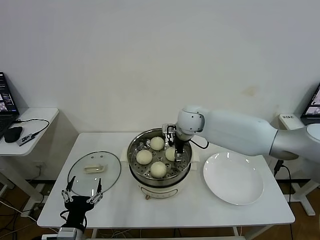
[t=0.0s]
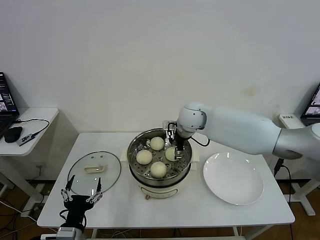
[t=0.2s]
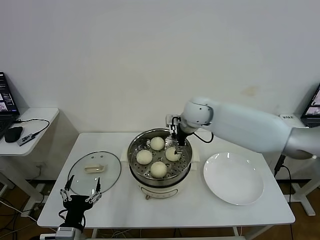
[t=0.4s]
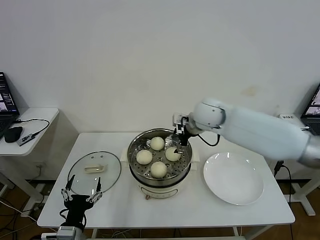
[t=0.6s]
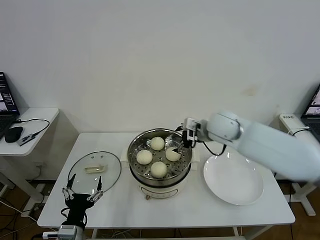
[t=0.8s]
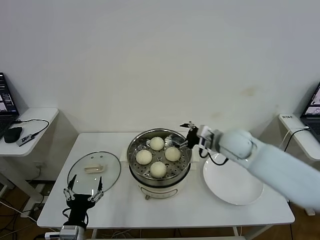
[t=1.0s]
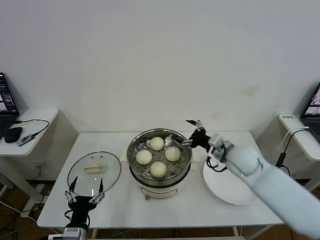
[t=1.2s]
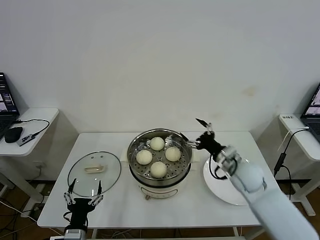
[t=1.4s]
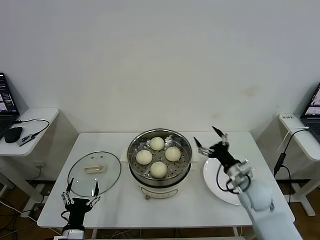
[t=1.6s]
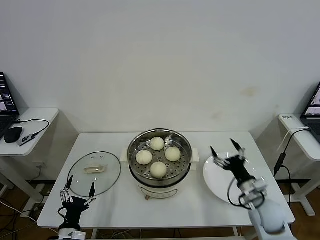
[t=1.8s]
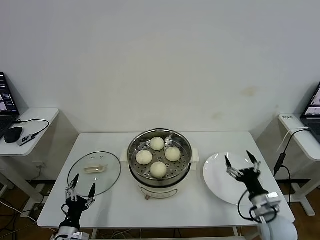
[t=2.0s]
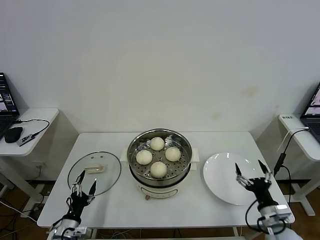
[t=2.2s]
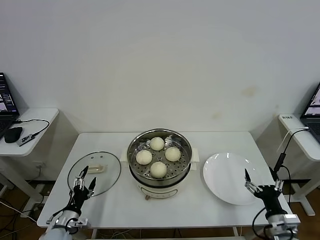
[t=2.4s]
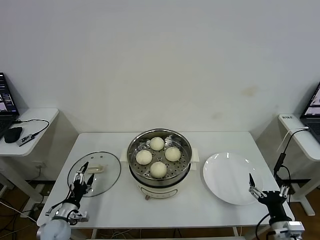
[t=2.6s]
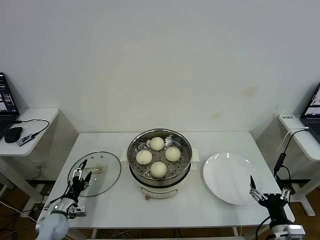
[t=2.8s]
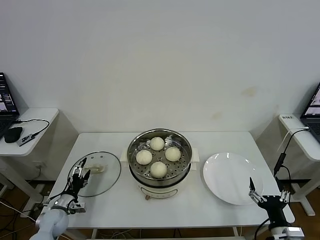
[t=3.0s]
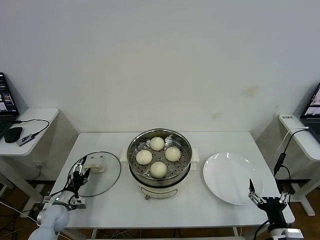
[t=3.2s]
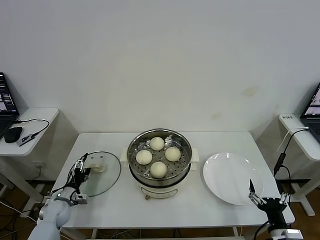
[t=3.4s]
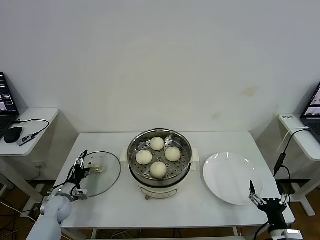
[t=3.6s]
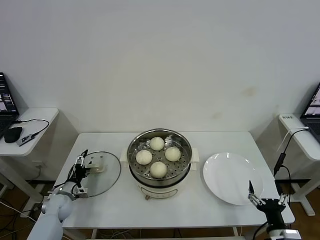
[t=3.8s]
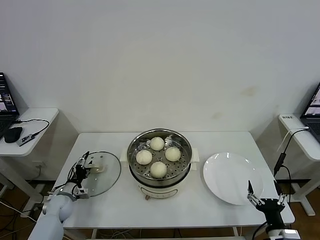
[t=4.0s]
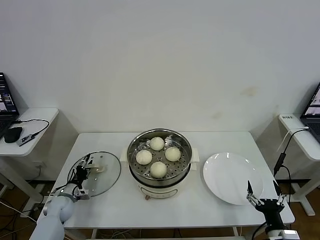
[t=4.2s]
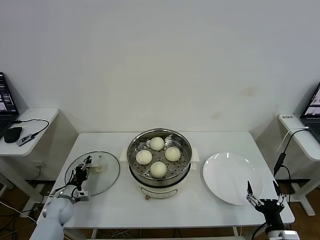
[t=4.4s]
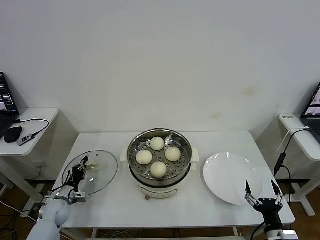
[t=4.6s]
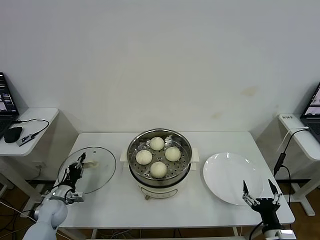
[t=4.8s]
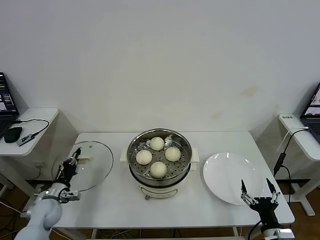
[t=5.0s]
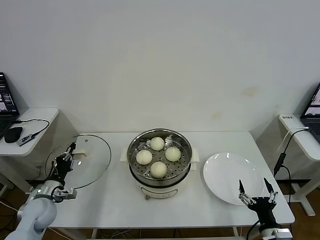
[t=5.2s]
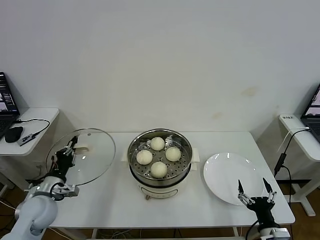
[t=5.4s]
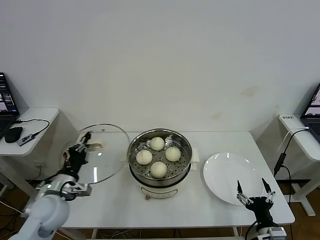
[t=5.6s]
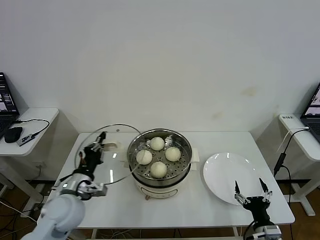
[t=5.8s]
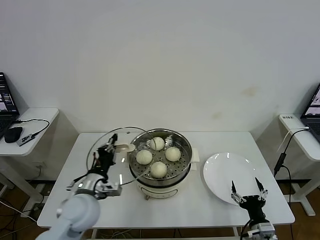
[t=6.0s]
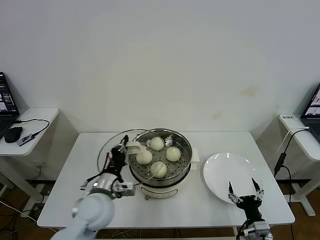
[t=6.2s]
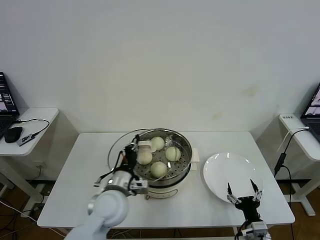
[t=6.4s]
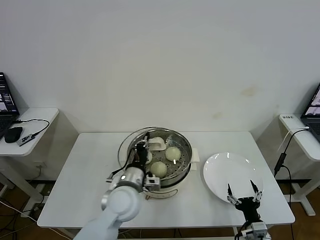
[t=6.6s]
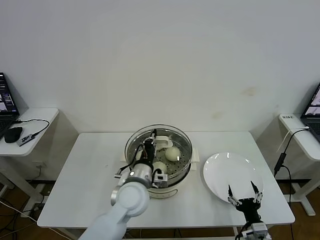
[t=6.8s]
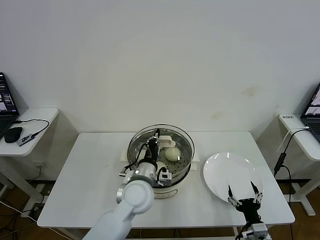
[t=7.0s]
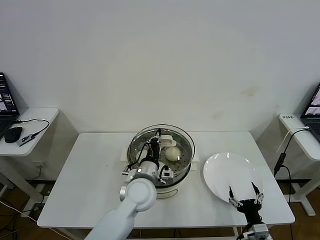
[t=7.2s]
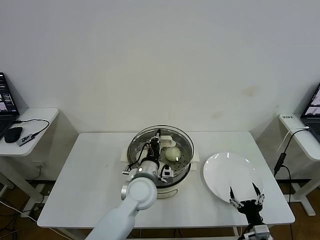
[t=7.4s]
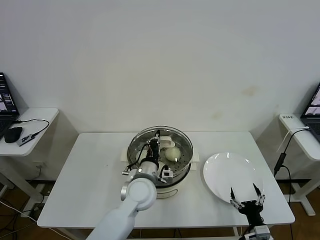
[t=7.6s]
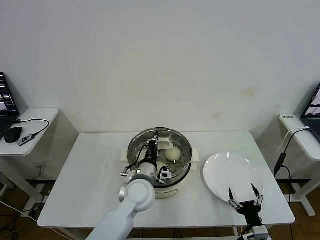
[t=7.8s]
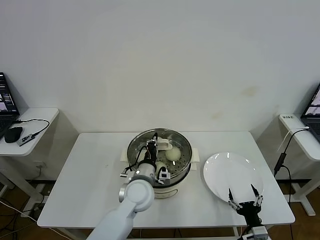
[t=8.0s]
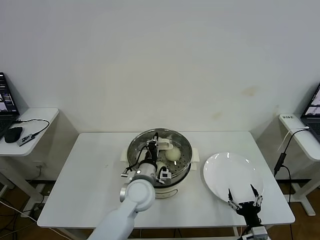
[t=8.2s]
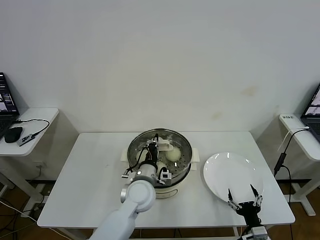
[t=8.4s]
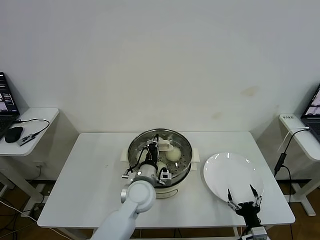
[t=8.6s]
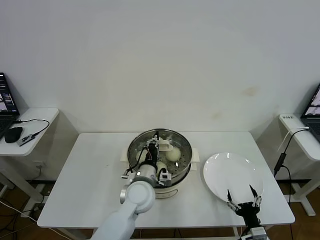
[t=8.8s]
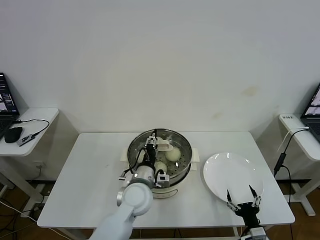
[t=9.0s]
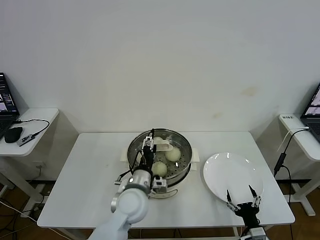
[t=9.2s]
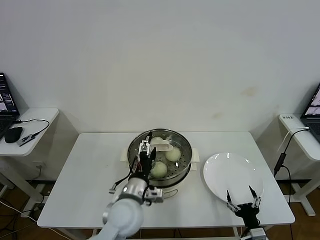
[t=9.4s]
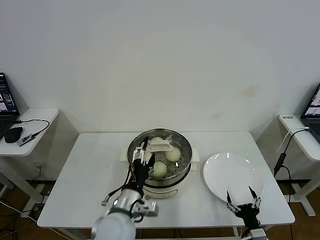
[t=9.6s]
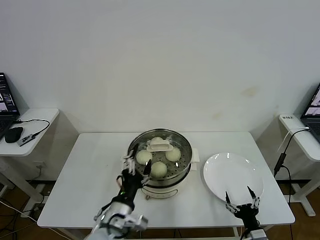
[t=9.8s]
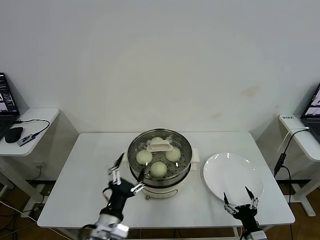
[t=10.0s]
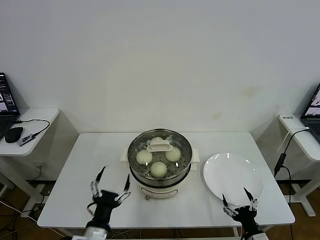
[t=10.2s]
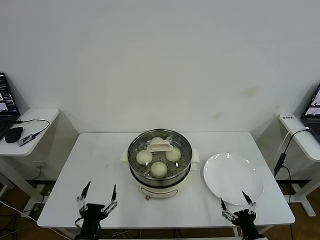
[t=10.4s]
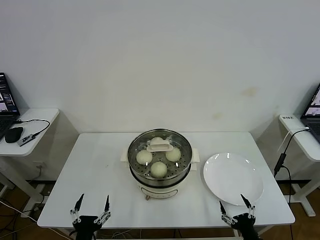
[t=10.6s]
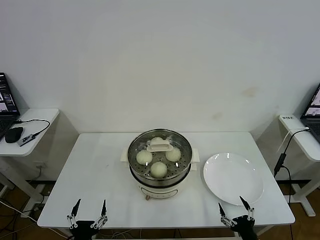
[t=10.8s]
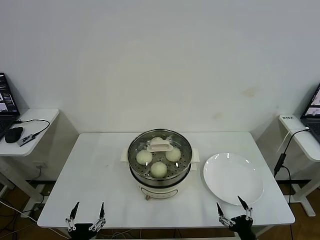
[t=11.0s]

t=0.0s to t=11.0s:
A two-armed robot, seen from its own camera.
Task of the whole recording: take steamed baozi put them in steamer then cover it.
Step, t=0.4s to t=4.6s: Grasp the pot lid with left gripper.
Step, t=5.0s to t=9.2s: Place the pot lid on the steamer with left gripper.
t=0.0s to t=1.6s: The right gripper shifts approximately 30 cm to the right, backward and downward. The left gripper goes roughly 5 cm downward.
t=1.6s to t=3.2s: The left gripper travels forward, to the left and downward by approximately 25 cm. Meanwhile the right gripper shifts about 20 cm backward.
t=3.2s to t=4.8s: The left gripper closes up.
t=4.8s to t=6.2s: The left gripper goes about 30 cm to the right and upward.
t=6.2s to t=7.8s: The left gripper goes roughly 15 cm to the right and forward.
t=7.8s to t=9.4s: The left gripper moves backward, roughly 5 cm, and opens its fingers.
t=9.4s to t=11.0s: The left gripper moves backward, to the left and downward, approximately 30 cm.
